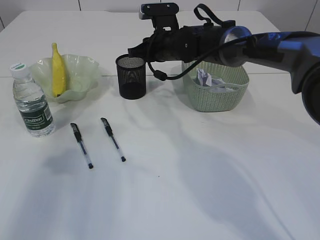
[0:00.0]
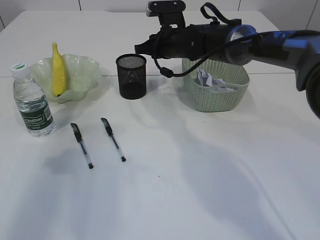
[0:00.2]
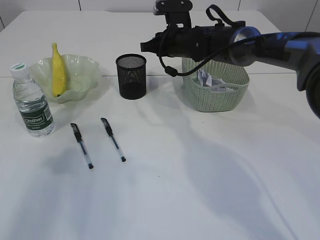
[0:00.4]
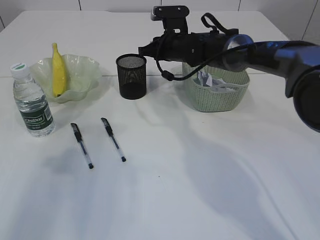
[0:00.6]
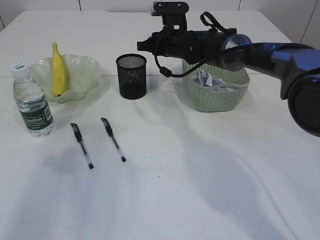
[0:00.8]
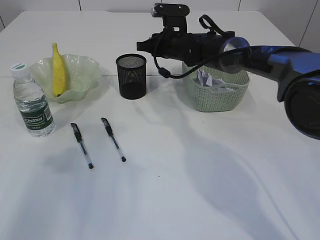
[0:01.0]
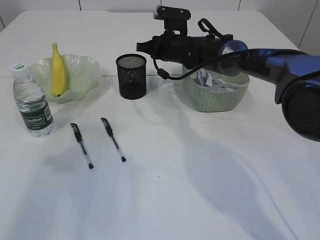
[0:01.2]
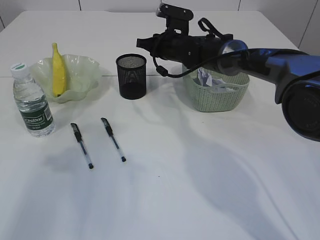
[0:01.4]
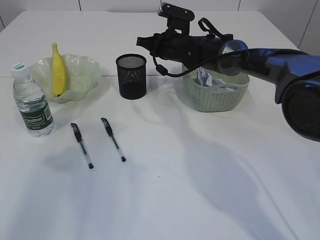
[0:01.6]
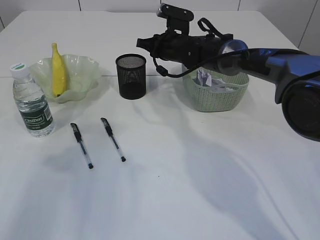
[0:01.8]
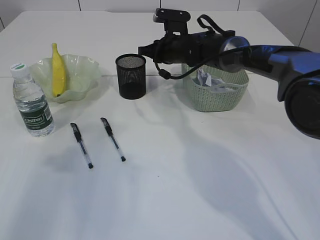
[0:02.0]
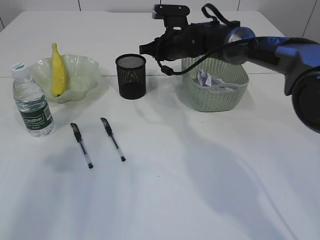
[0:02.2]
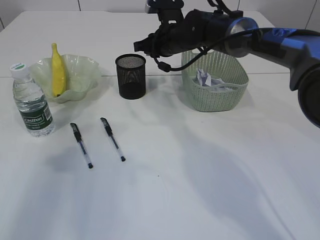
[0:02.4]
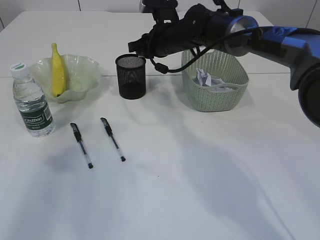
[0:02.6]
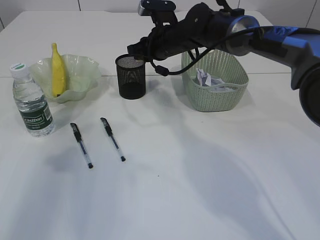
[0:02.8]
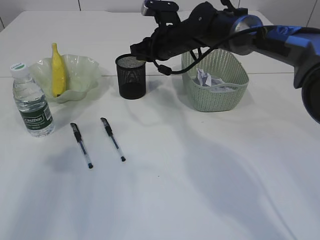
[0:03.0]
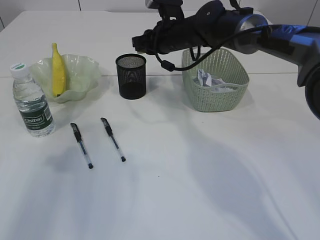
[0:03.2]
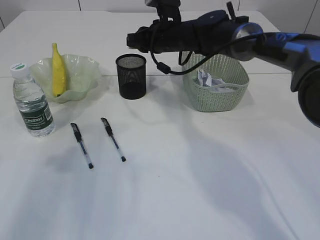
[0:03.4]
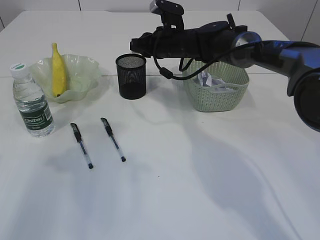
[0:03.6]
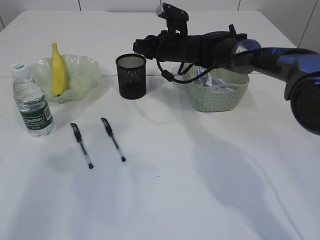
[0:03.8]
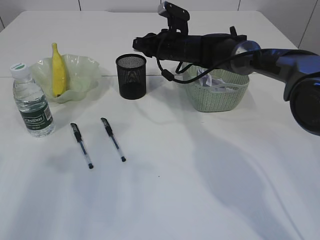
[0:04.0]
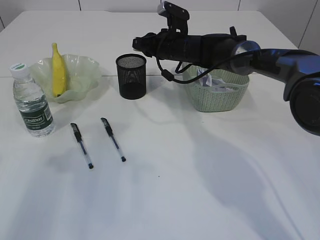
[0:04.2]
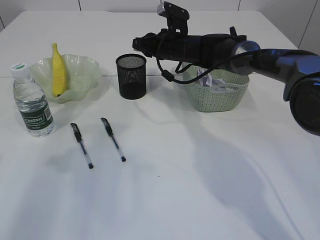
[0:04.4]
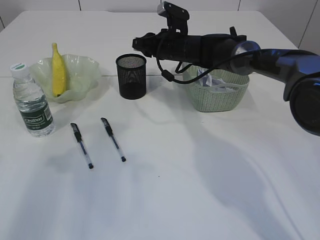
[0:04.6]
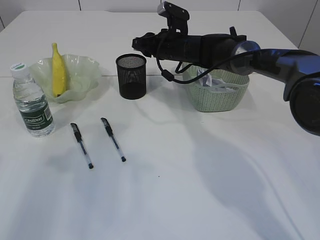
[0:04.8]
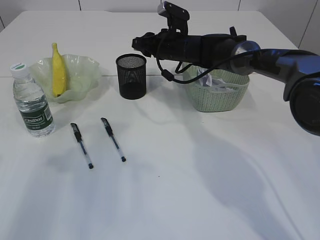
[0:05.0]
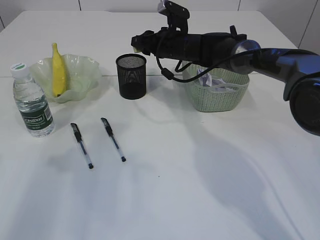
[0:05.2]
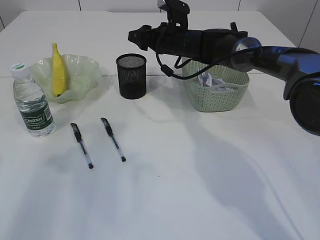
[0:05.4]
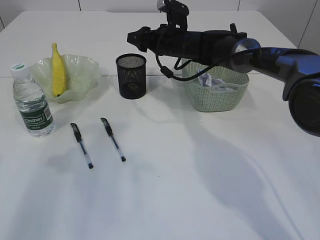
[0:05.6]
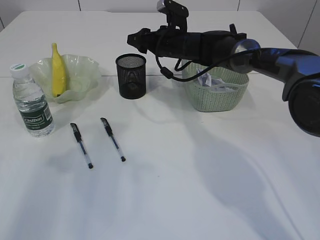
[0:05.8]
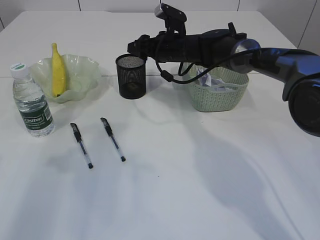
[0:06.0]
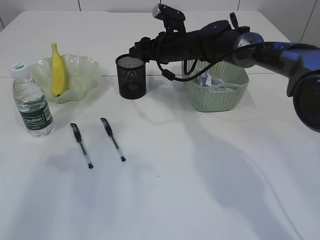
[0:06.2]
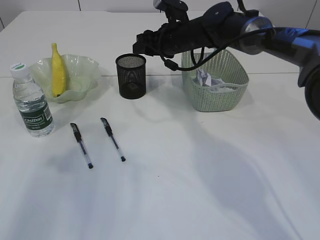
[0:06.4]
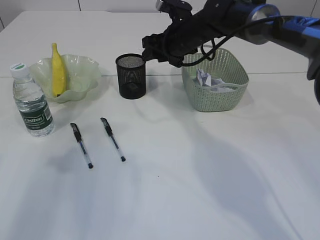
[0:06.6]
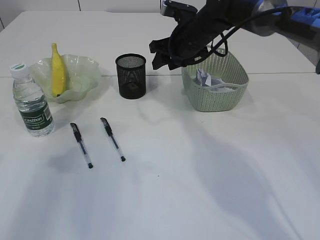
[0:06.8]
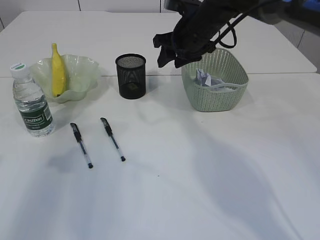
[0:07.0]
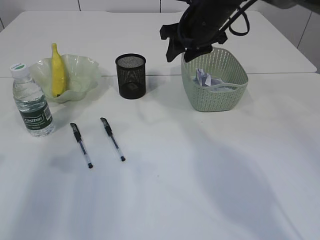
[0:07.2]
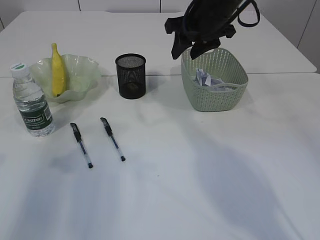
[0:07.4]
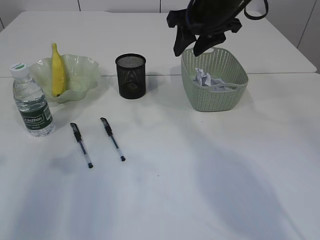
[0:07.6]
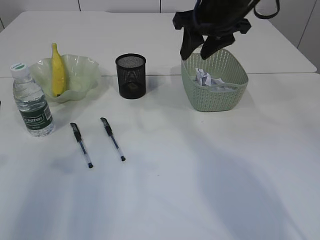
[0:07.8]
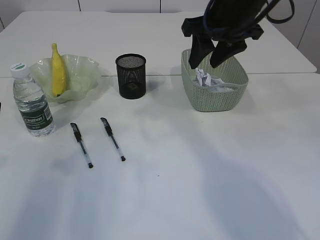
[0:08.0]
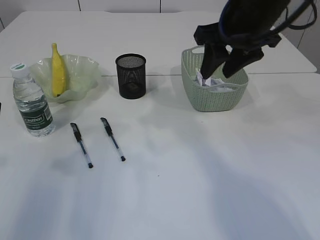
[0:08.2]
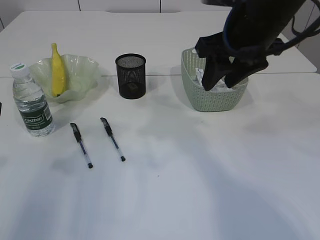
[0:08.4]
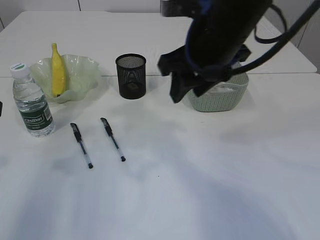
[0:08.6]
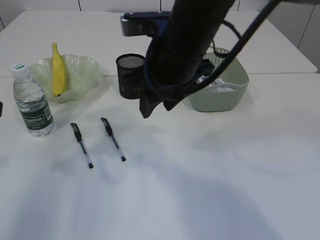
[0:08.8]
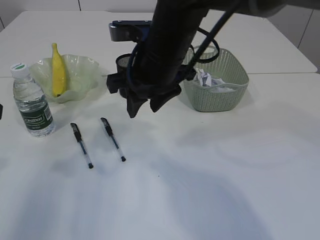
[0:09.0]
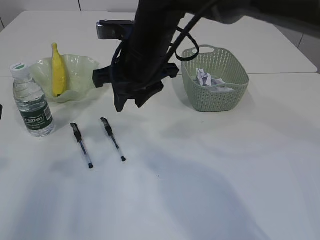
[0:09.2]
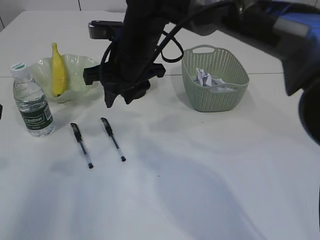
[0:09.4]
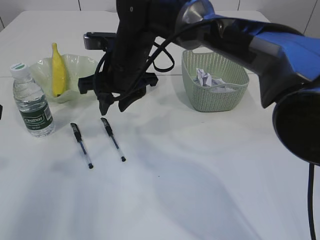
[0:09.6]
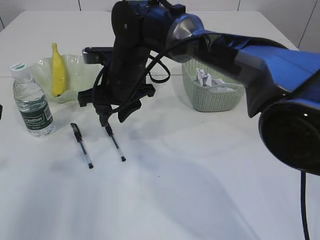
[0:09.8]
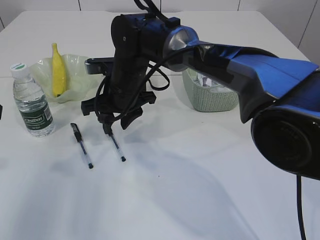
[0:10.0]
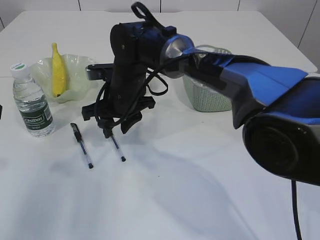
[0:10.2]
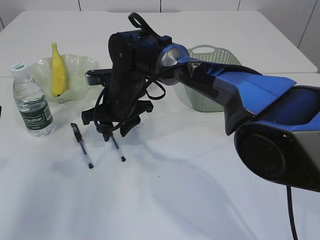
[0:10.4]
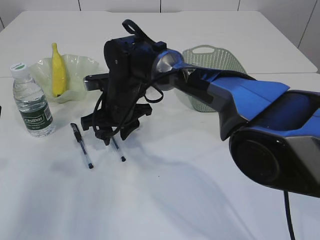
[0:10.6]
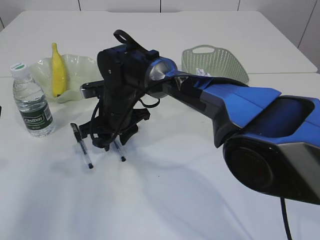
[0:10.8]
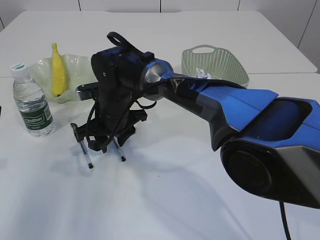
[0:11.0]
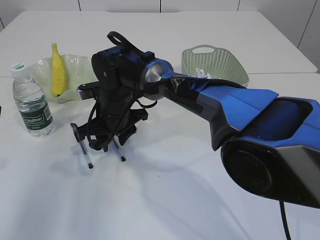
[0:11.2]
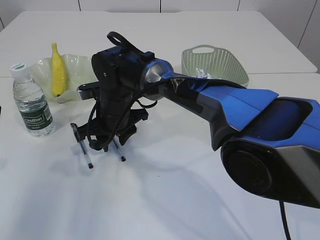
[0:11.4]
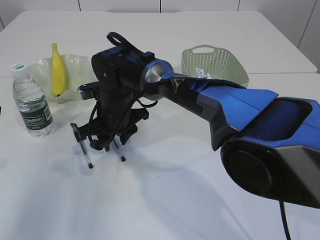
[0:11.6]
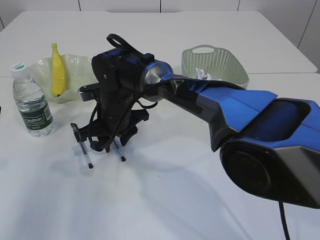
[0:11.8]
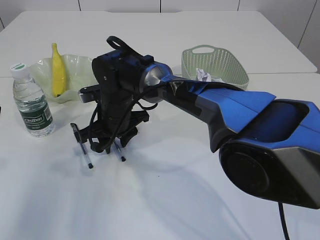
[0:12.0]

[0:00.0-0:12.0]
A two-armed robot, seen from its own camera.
Step, 0:00.0 to 0:06.4: Place the eraser into the pen holder.
0:00.0 to 0:01.6: The grippers make only small movements.
0:04.4 to 0:06.0: The right gripper opens its fingers.
0:06.0 to 0:07.6: The right gripper goes roughly 15 cm upward and backward.
0:07.6 to 0:09.0: The right gripper shifts some 15 cm to the left and backward.
0:09.0 to 0:10.4: The right gripper shifts approximately 15 cm downward, forward and to the left.

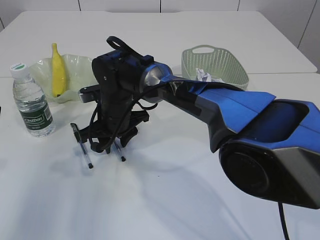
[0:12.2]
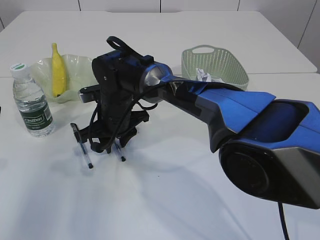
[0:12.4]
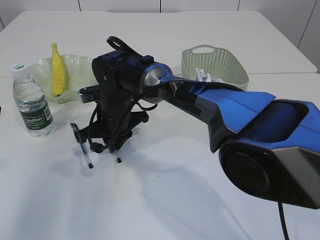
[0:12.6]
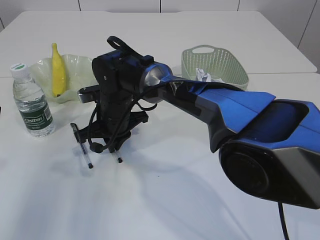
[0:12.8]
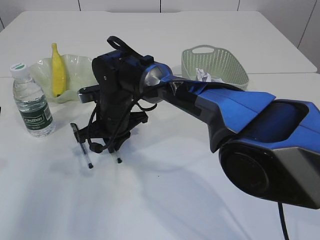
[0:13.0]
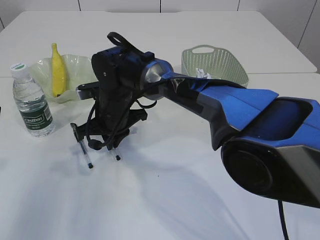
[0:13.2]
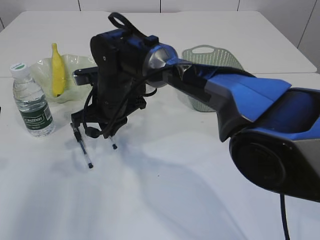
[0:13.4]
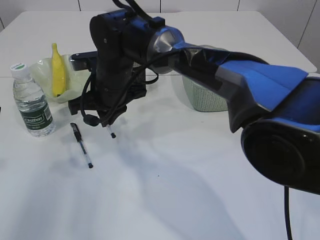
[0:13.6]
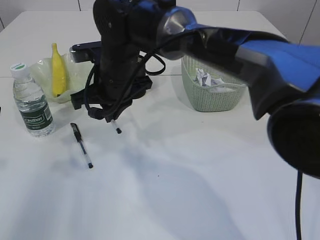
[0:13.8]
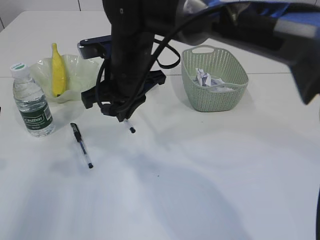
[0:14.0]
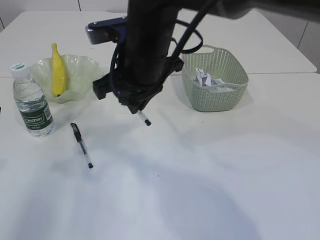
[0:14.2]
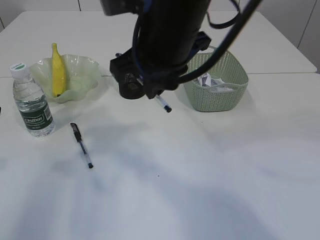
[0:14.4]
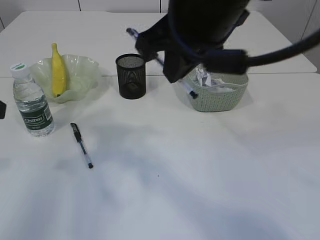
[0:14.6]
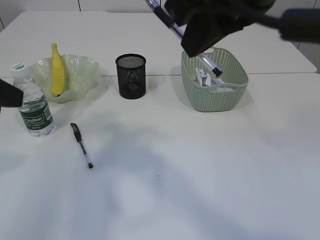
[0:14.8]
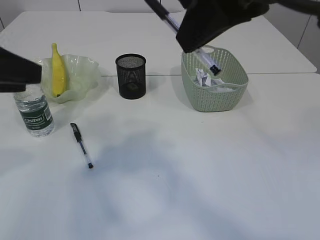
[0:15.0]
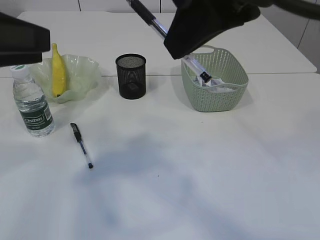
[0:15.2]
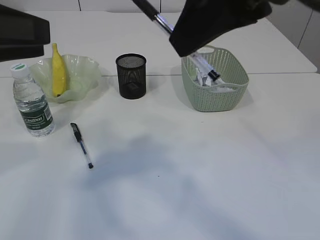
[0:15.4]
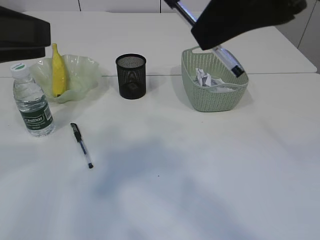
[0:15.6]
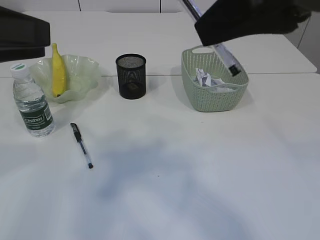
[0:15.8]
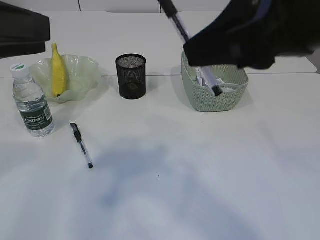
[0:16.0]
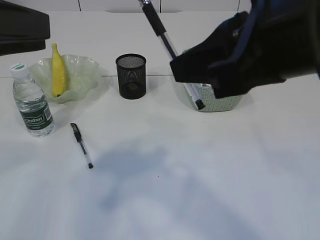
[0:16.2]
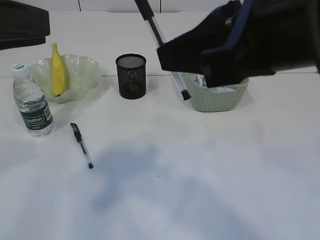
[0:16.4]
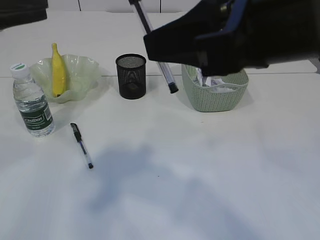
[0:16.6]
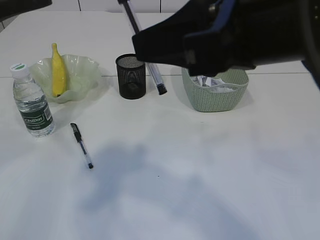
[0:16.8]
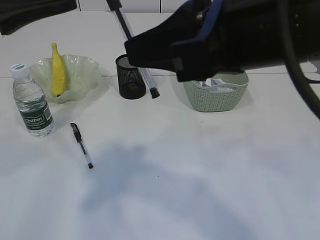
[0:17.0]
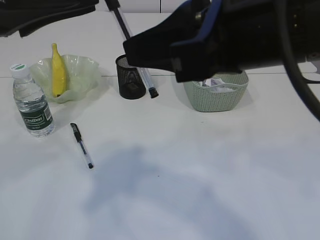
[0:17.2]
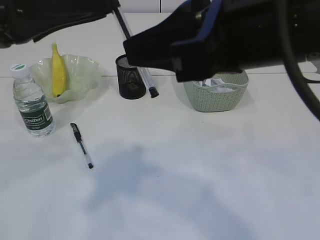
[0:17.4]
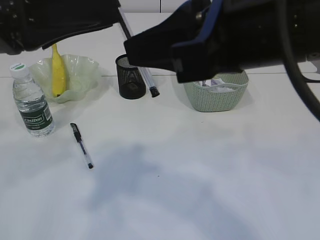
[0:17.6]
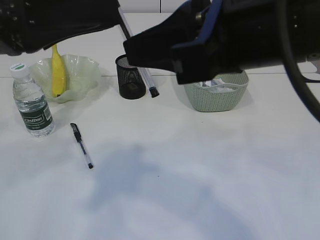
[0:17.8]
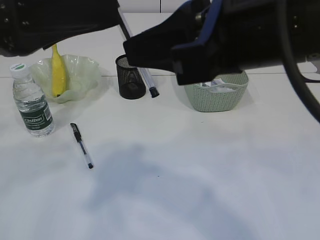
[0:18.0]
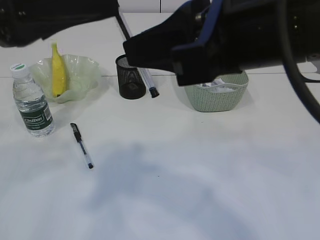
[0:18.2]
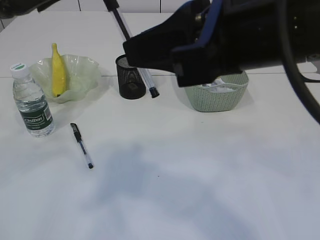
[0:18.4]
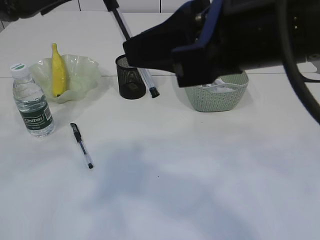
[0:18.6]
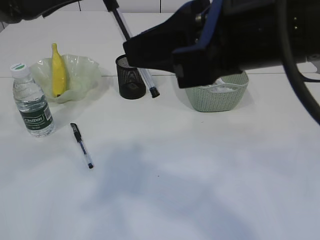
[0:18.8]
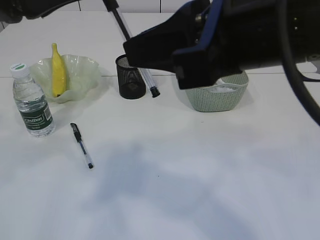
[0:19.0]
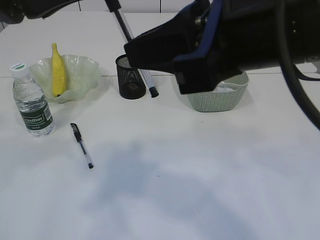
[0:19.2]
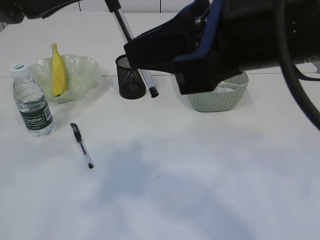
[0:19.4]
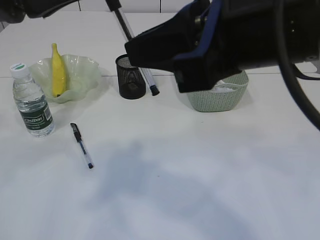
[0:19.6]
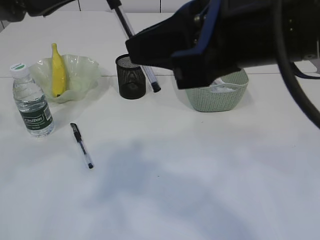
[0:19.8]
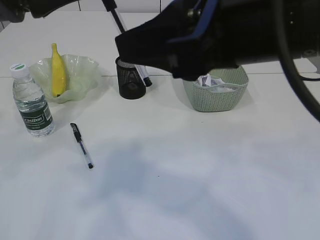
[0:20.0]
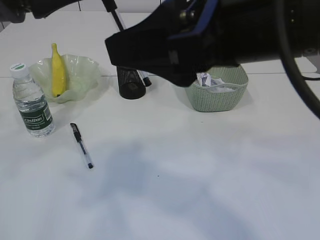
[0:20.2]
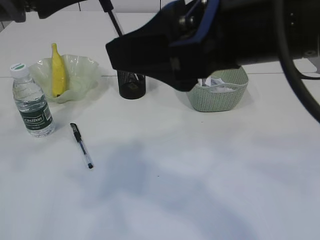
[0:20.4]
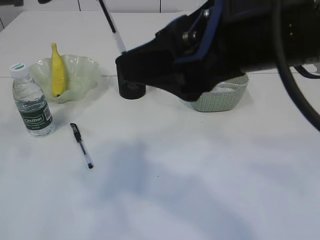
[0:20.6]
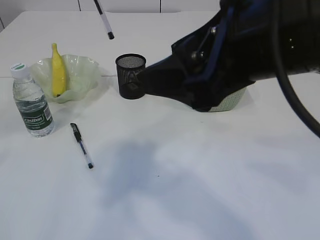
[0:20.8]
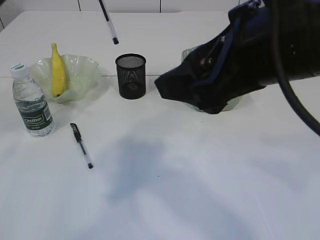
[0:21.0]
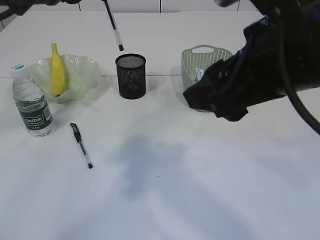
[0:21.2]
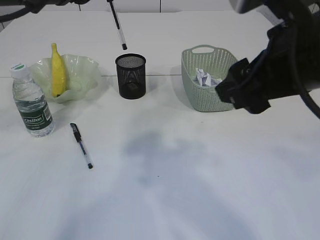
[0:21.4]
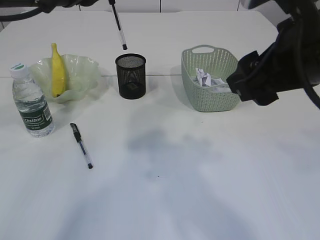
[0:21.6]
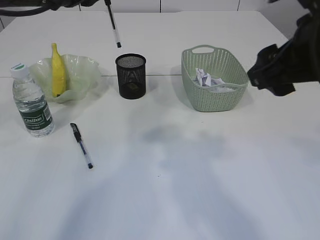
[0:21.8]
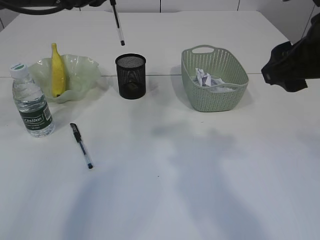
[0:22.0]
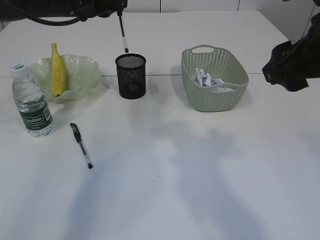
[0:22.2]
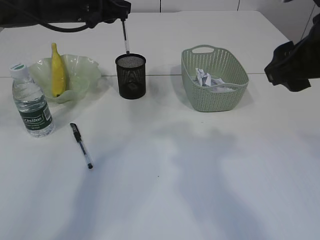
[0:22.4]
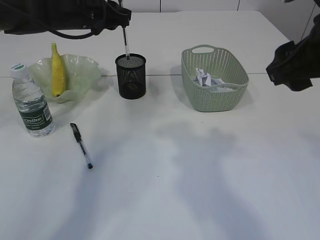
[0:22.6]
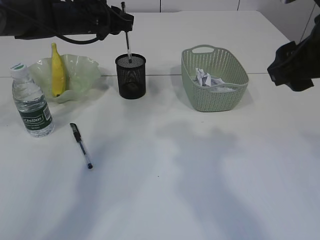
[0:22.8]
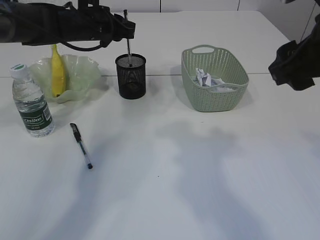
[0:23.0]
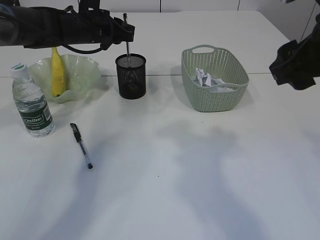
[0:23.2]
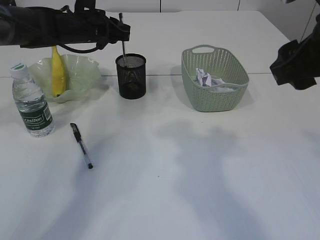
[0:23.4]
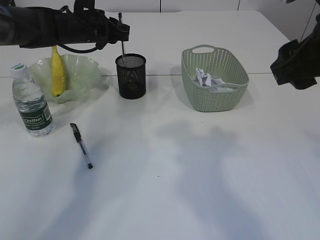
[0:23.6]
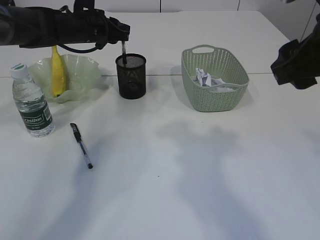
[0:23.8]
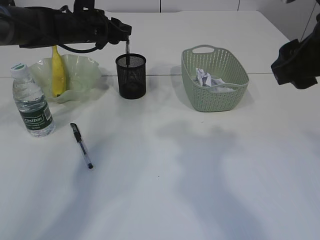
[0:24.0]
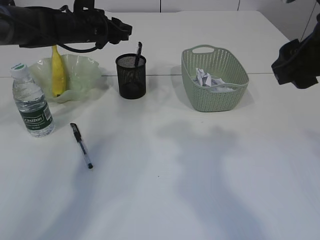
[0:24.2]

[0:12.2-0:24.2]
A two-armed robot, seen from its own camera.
Step, 0:14.0 to 0:21.4: transfer the pen to the left arm.
Step, 0:21.6 to 0:24.2: Place the pen into the pen holder.
0:12.2 to 0:13.8: The right gripper shifts some 10 cm upward, and closes up.
0:13.8 to 0:15.2: The left gripper changes place by roughly 5 cm. Meanwhile the right gripper travels upward, backward and to the right by some 30 cm.
0:15.2 to 0:16.6: The right gripper changes place by roughly 5 cm.
0:16.6 to 0:18.2: The left gripper moves to the right, approximately 5 cm.
0:18.2 to 0:19.8: The left gripper closes.
0:19.8 to 0:21.2: The right gripper opens its fingers; the left gripper is displaced forward by some 10 cm.
0:21.2 to 0:22.6: The left gripper shifts some 20 cm forward and downward. The right gripper shifts about 5 cm to the right.
0:22.6 to 0:24.2: The left gripper opens up.
